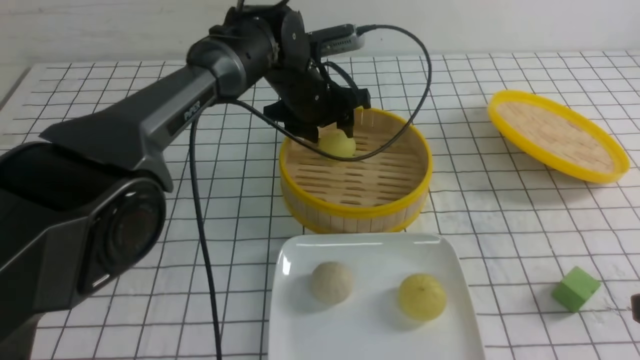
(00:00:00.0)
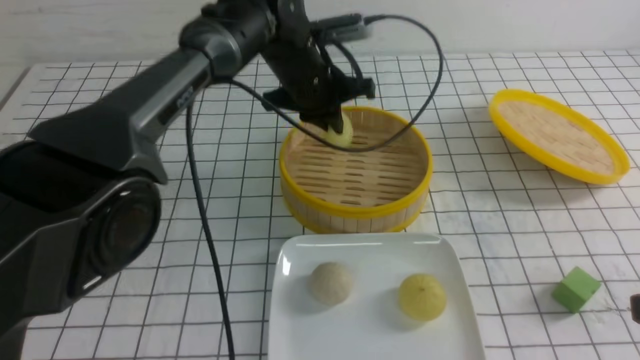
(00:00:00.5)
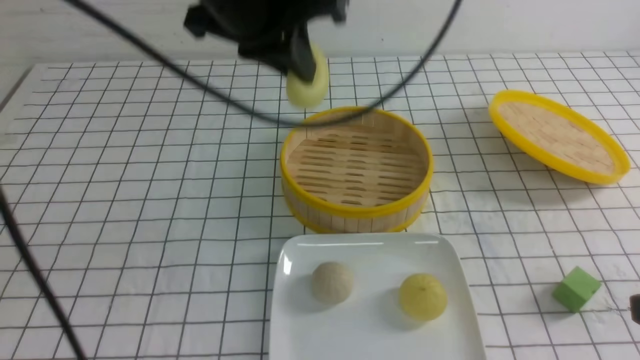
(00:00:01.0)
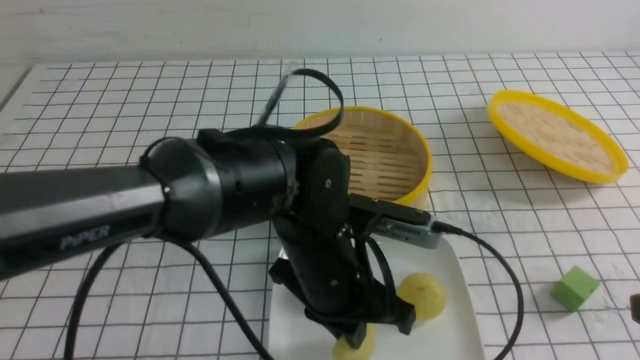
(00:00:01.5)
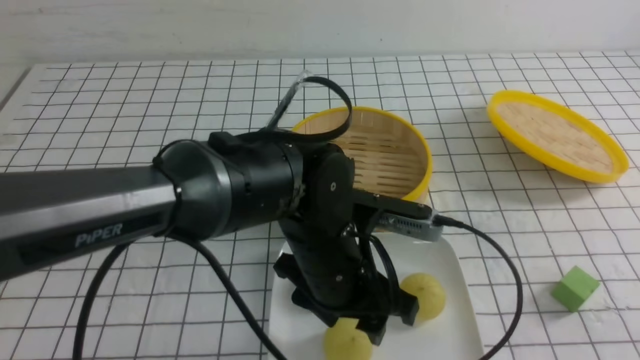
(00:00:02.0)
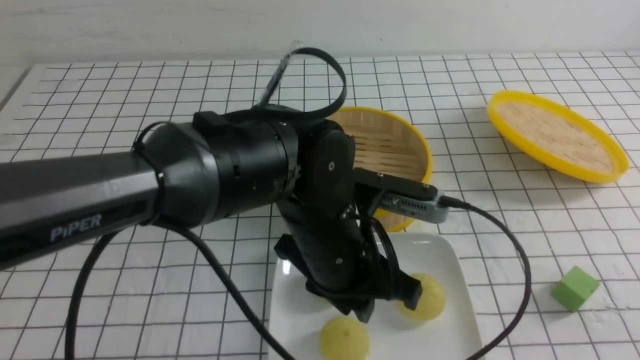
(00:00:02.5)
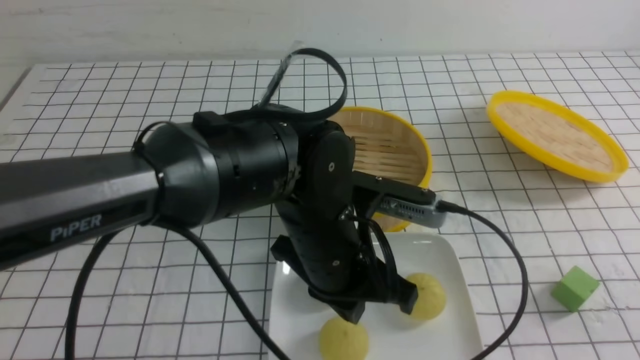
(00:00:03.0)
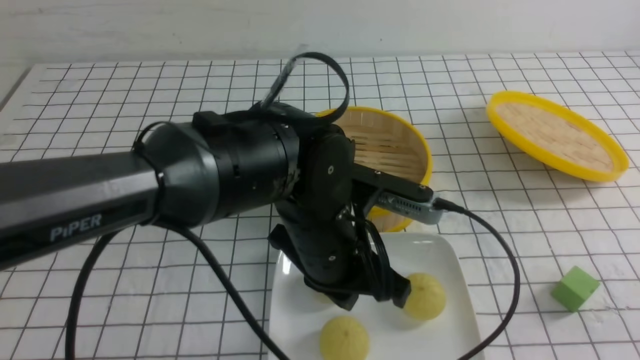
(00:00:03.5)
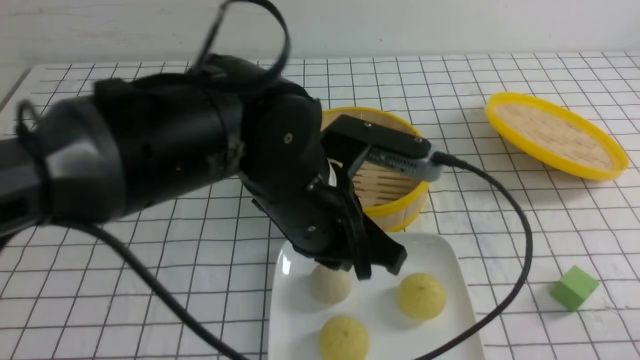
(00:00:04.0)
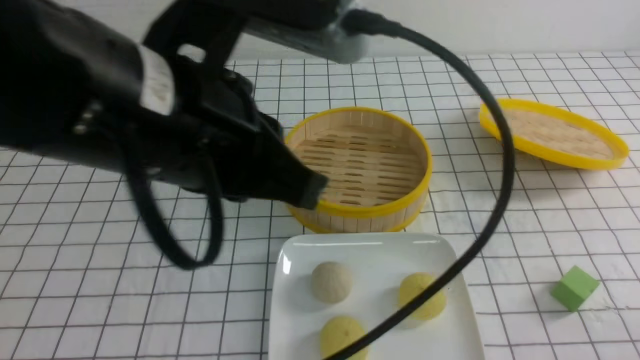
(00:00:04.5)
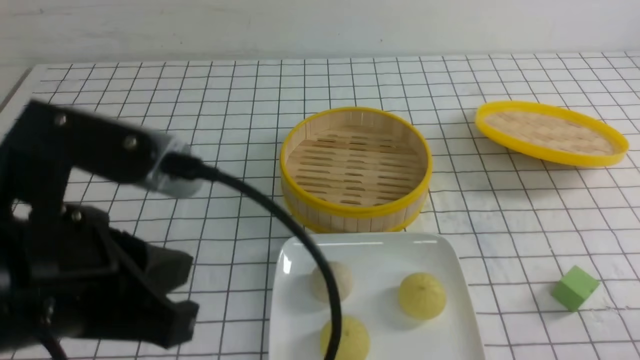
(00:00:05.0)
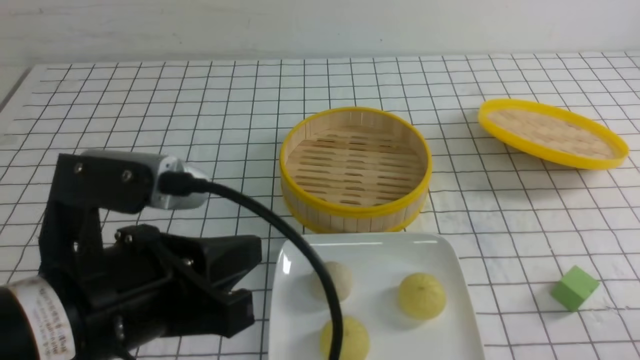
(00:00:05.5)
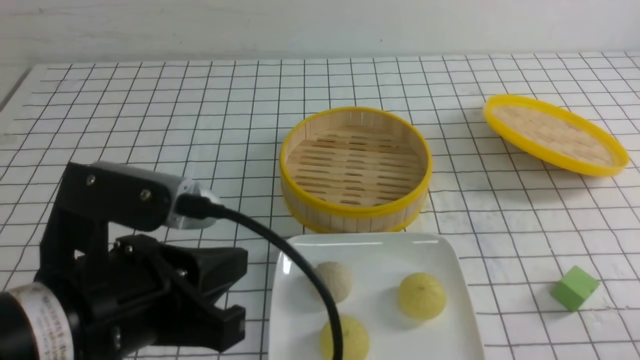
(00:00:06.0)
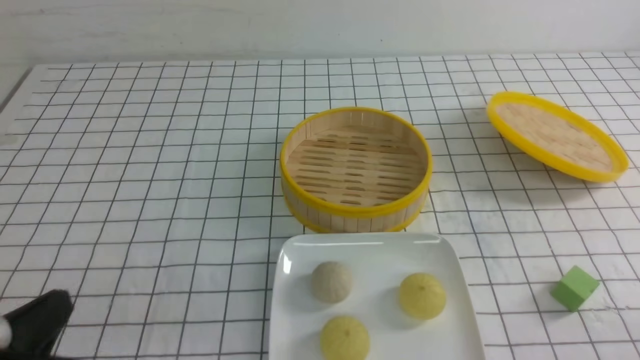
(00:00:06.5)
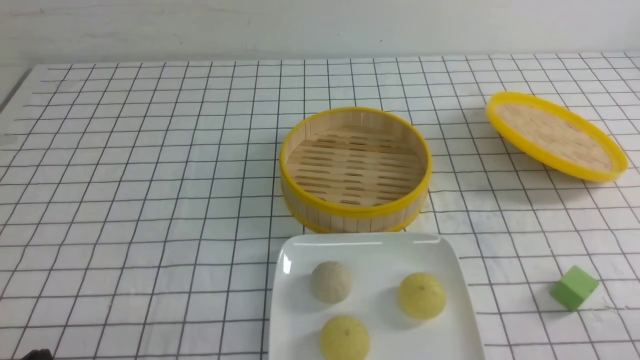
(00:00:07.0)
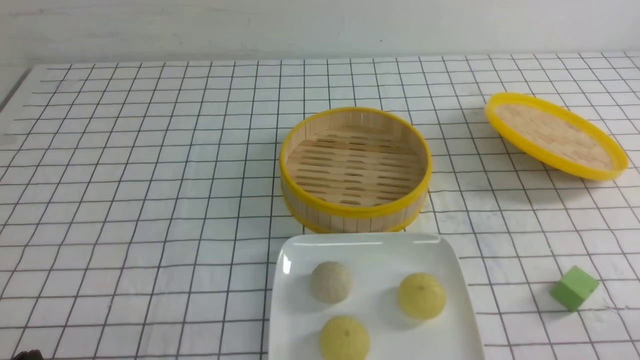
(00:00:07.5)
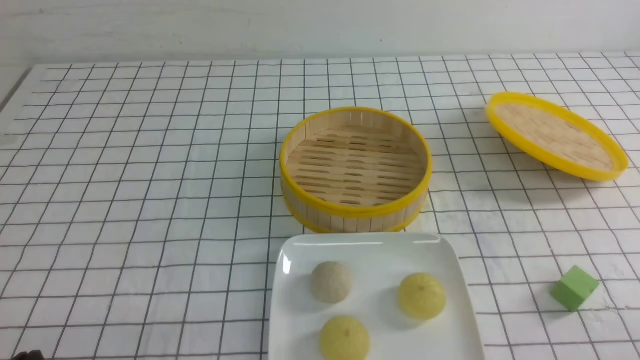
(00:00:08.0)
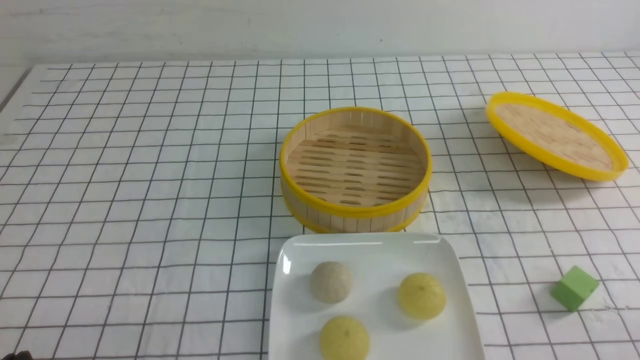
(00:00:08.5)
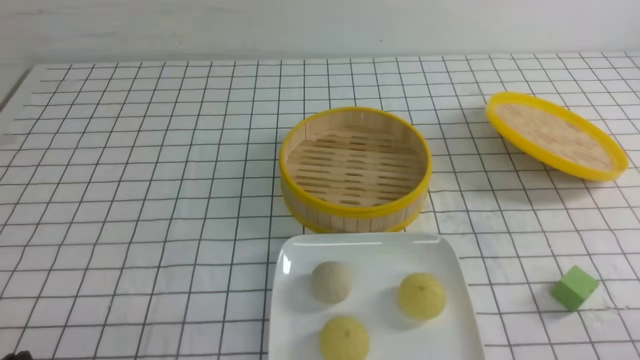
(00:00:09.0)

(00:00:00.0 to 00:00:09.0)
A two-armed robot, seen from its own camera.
Step, 00:00:01.0 - 00:00:02.0: use the left arm to put the steamed stuffed bun into the plate.
00:00:00.0 - 00:00:02.0: The left gripper moves backward, roughly 25 cm, and closes, then reopens, while the right gripper is displaced backward by approximately 5 cm, and closes its fingers.
00:00:02.0 - 00:00:04.5: The left gripper is displaced upward and to the left by about 20 cm, and closes its fingers. The right gripper is displaced downward by approximately 15 cm.
00:00:04.5 - 00:00:07.0: The left gripper goes about 30 cm downward, to the left and backward.
